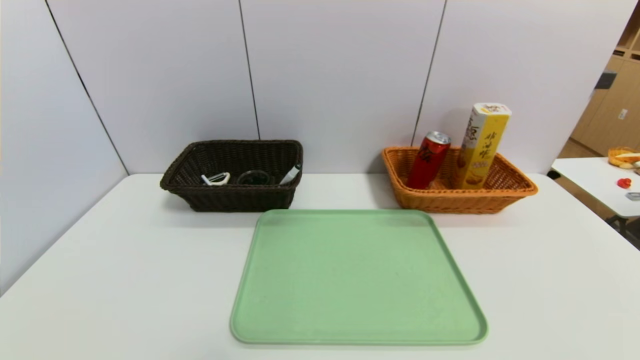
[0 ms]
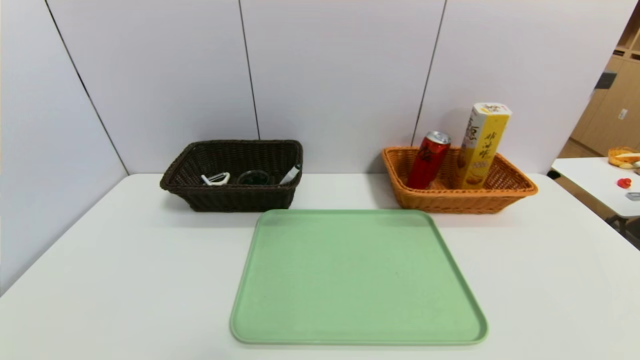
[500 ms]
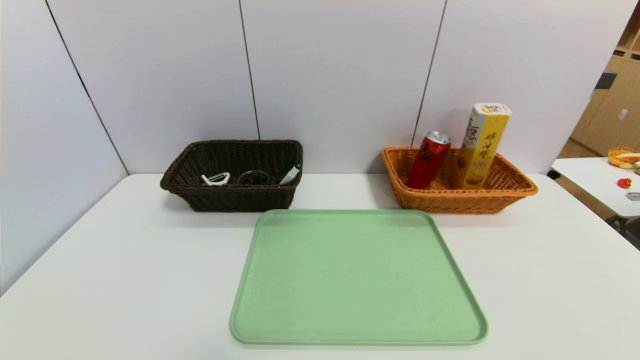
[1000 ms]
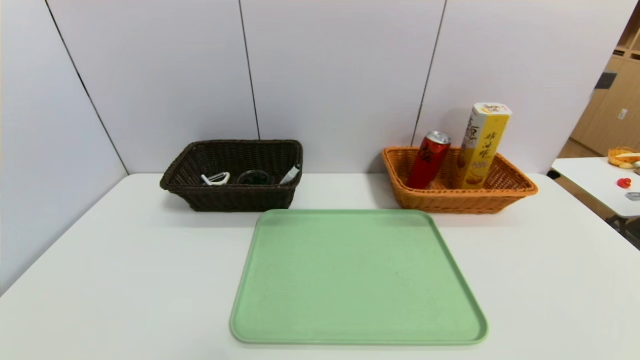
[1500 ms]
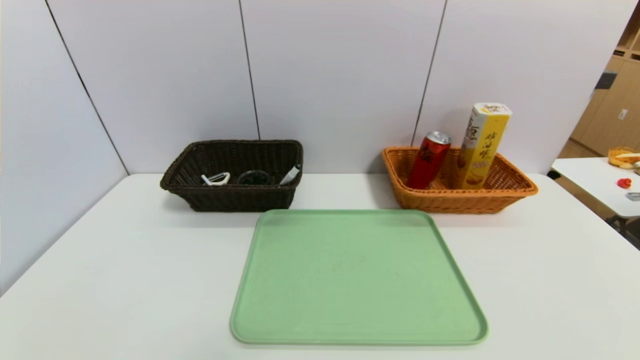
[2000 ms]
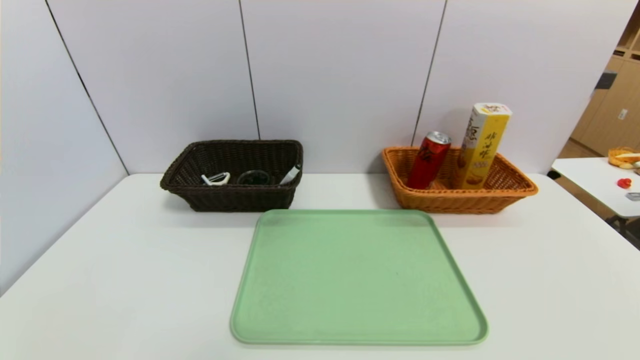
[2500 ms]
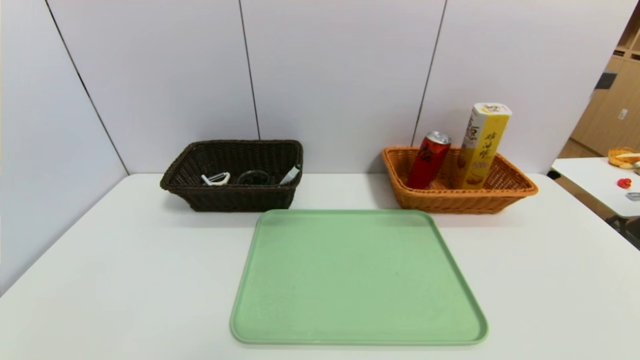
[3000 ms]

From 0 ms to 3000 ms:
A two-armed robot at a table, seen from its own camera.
Task of the whole recording: place the food in the right basket with the right gripper, and place the non food items in the left basket with the left gripper.
From 1500 ms to 3000 ms: The two grippers keep their place.
